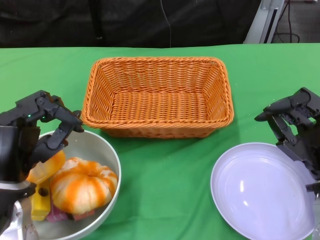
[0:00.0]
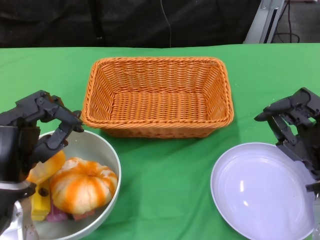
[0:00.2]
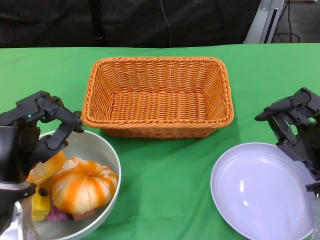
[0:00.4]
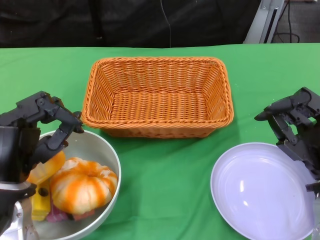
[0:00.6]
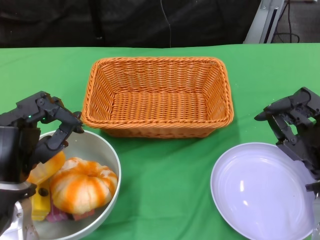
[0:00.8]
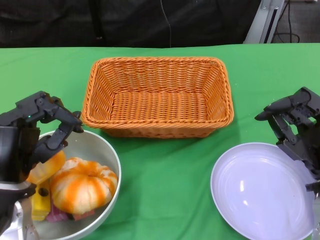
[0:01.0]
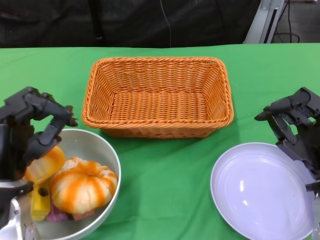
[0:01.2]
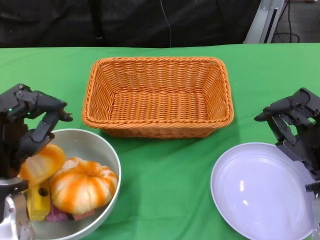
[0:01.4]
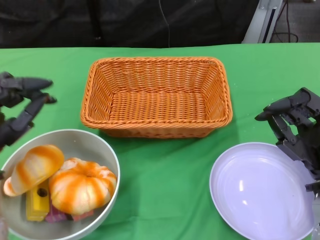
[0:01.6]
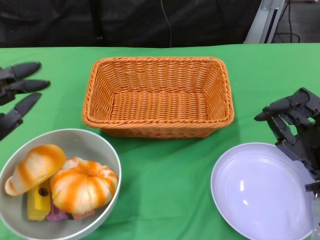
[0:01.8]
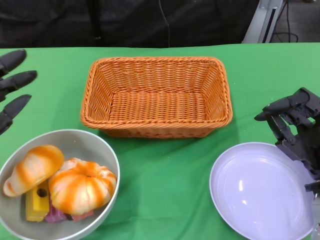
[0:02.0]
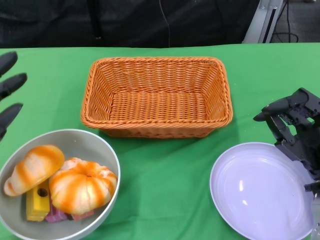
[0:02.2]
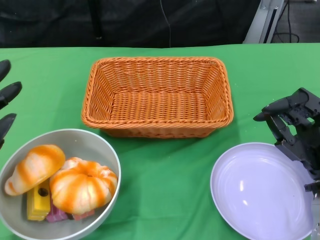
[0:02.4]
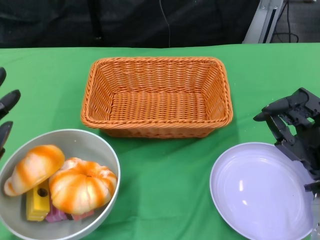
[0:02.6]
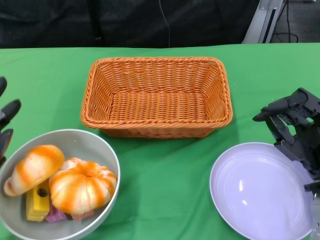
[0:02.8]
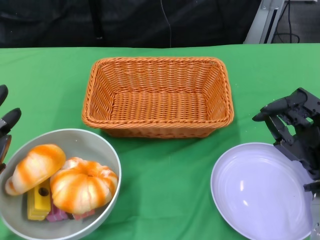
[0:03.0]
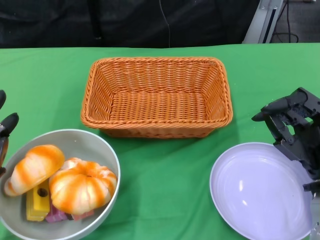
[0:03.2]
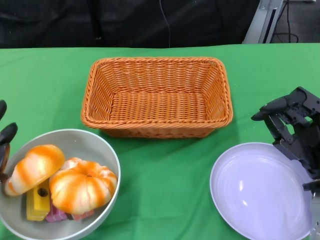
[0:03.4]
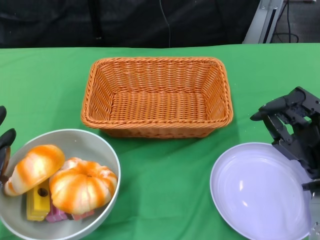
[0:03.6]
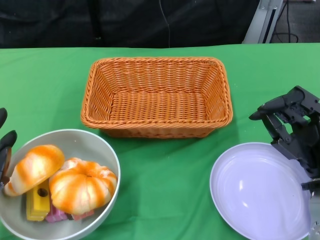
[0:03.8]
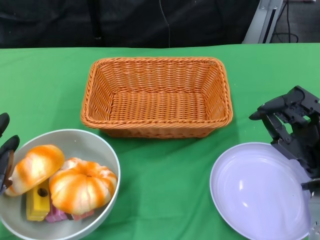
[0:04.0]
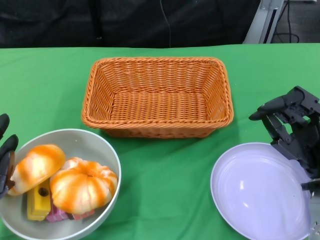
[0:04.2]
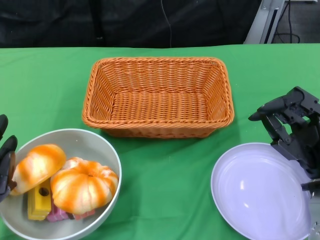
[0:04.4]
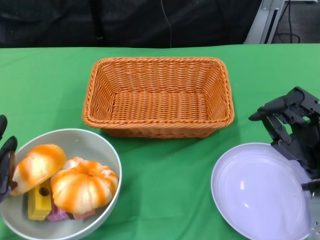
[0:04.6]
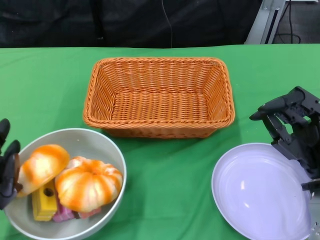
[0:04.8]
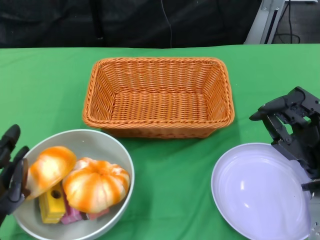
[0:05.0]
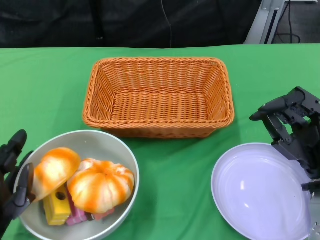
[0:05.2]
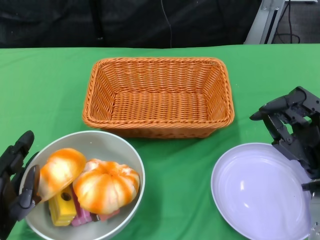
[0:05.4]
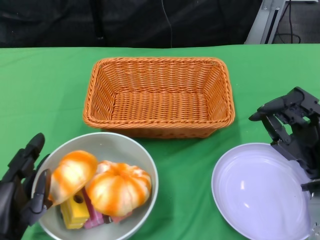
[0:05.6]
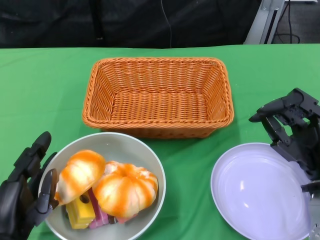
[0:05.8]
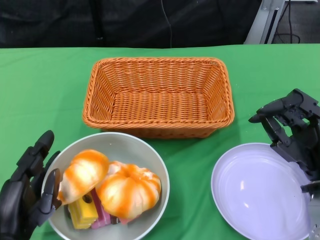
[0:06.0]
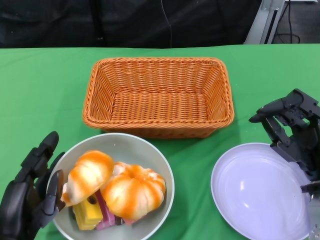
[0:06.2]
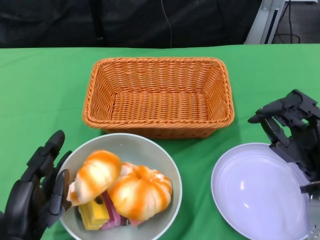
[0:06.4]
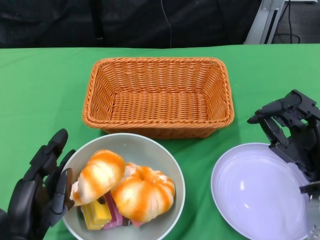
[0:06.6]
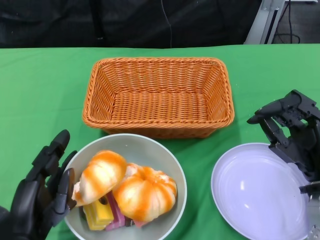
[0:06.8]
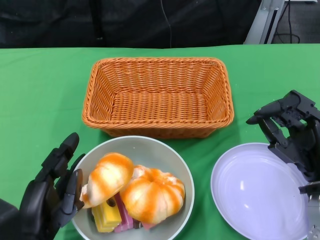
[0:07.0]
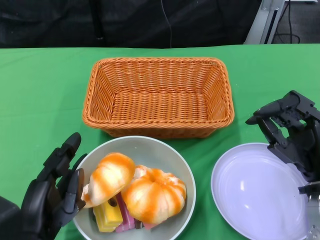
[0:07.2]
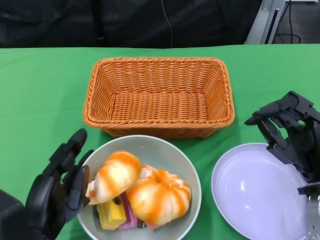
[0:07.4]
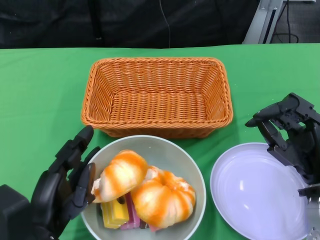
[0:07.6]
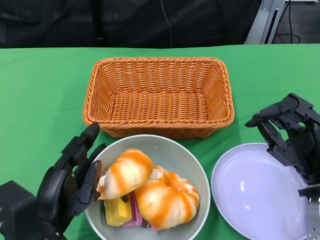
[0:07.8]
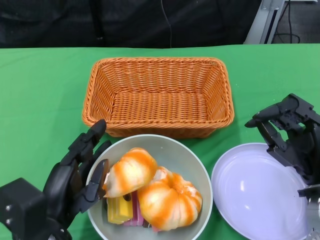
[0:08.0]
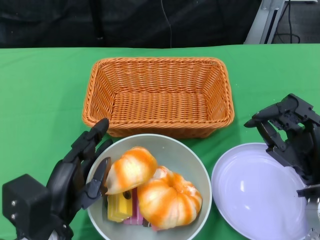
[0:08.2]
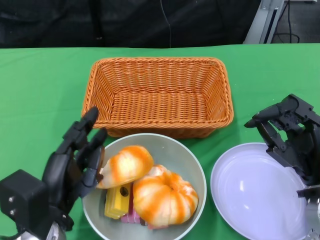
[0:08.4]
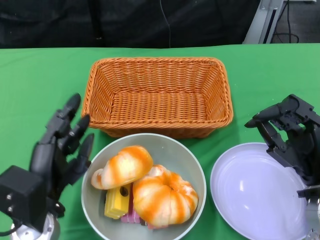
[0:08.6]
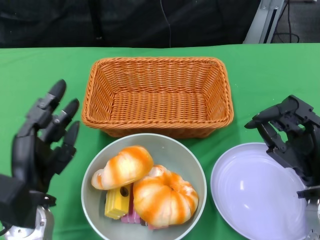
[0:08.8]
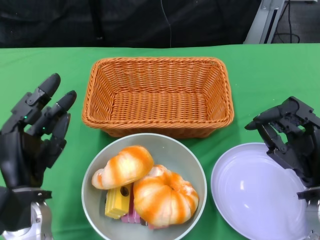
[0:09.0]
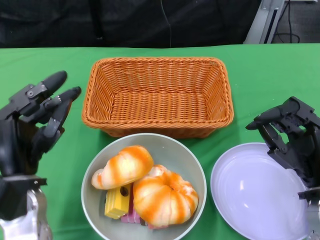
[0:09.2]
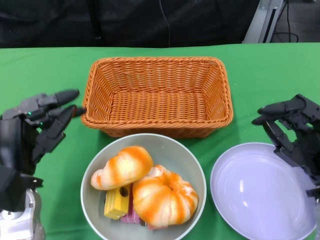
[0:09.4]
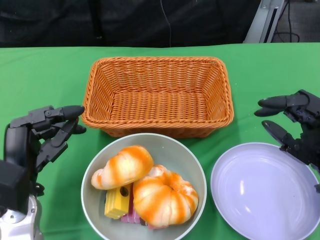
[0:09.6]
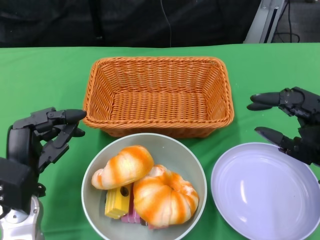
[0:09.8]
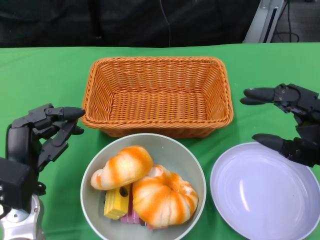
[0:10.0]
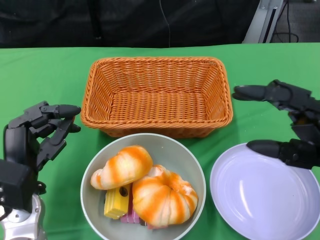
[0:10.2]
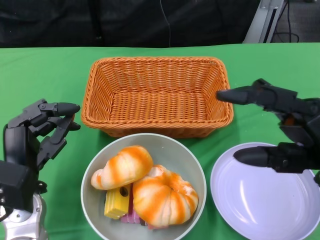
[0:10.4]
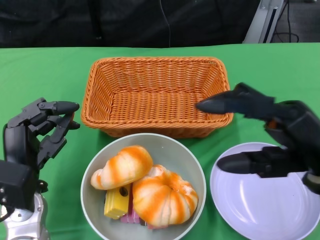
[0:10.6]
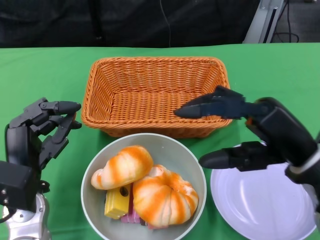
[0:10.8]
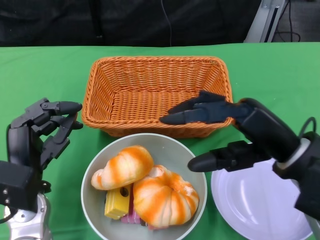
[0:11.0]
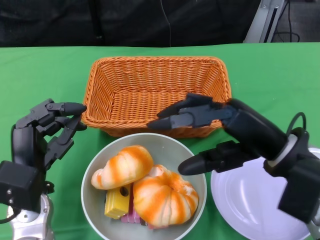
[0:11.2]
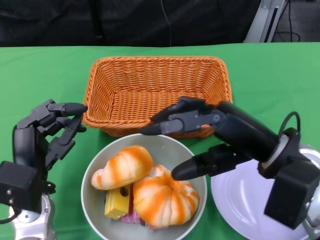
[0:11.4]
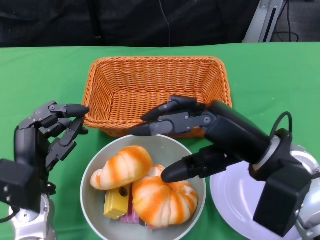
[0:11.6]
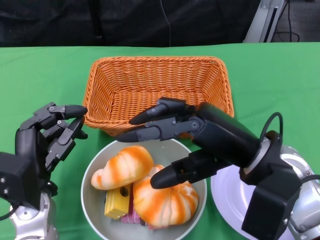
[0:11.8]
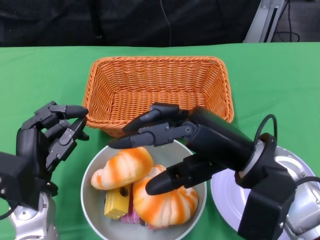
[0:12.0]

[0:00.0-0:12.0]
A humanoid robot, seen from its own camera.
Step, 0:00.0 to 0:09.2: Push the bowl to the center of the table using the left gripper.
0:01.6 to 0:03.0: The left hand shifts by approximately 5 cm.
0:03.0 to 0:04.4: The hands move only a little.
0:04.4 to 0:06.0: The left hand travels to the right by some 5 cm.
0:09.0 to 0:10.4: The right hand shifts roughly 10 cm upward.
0:10.4 to 0:12.0: The right hand is displaced to the left by about 10 cm.

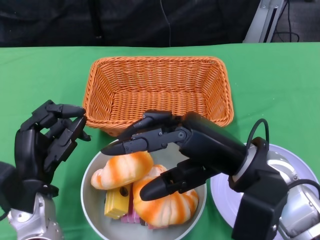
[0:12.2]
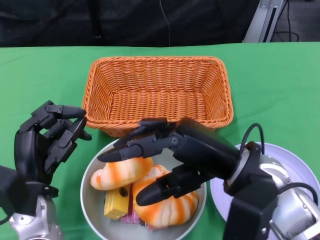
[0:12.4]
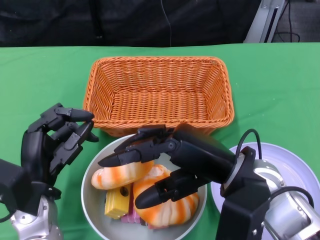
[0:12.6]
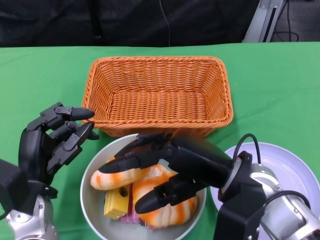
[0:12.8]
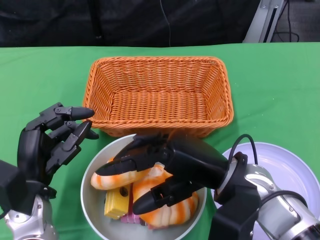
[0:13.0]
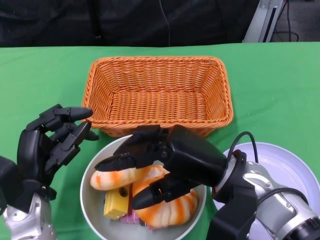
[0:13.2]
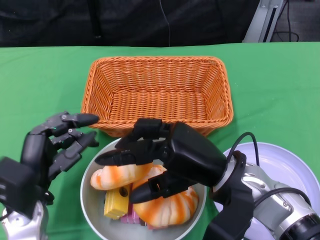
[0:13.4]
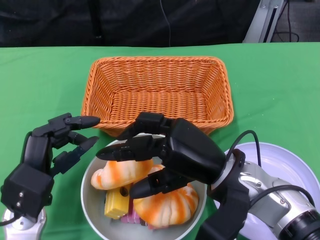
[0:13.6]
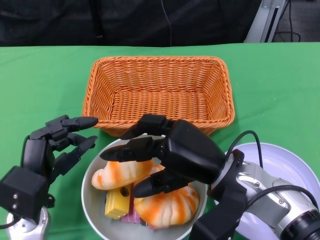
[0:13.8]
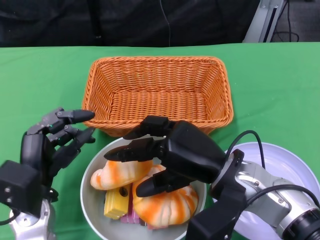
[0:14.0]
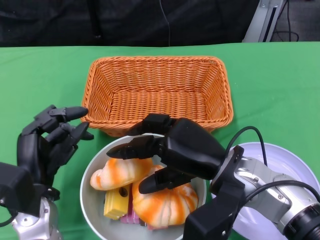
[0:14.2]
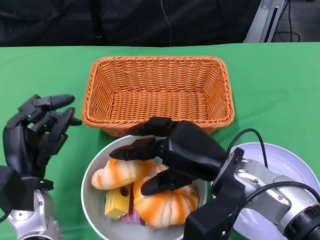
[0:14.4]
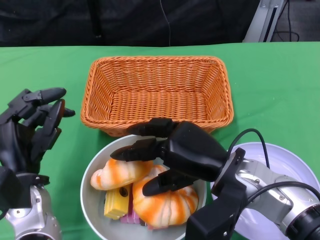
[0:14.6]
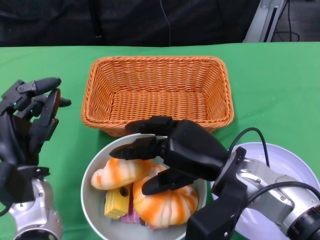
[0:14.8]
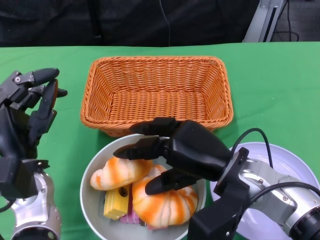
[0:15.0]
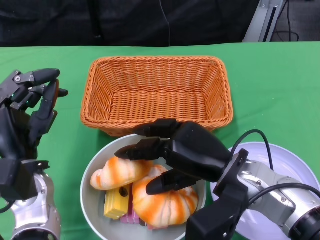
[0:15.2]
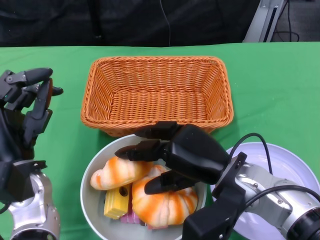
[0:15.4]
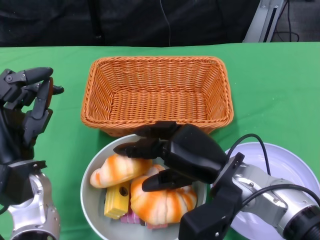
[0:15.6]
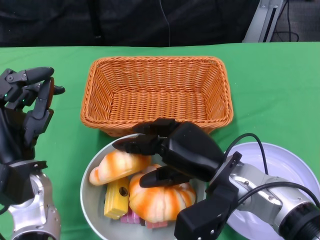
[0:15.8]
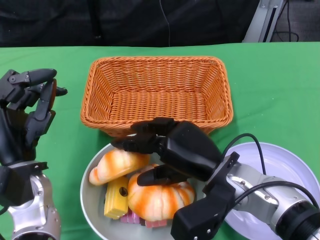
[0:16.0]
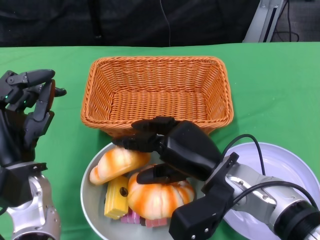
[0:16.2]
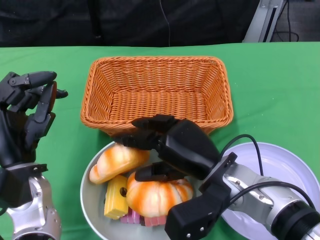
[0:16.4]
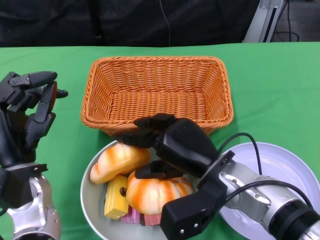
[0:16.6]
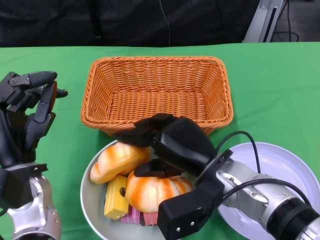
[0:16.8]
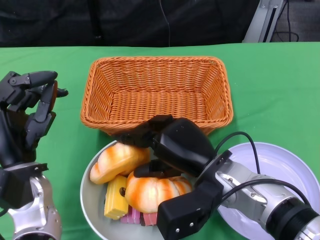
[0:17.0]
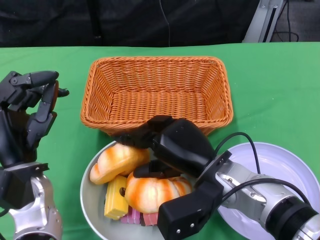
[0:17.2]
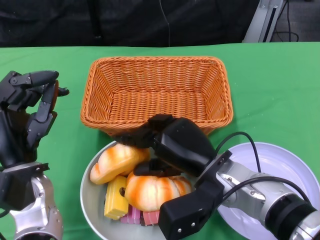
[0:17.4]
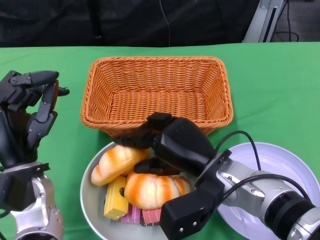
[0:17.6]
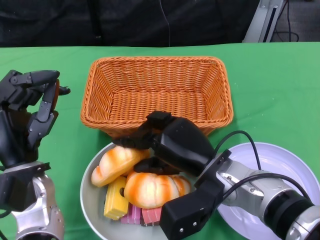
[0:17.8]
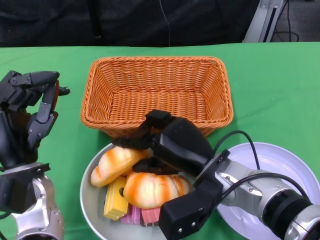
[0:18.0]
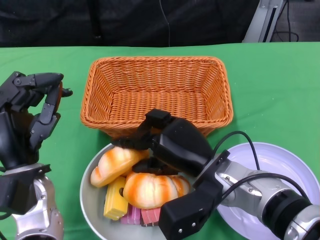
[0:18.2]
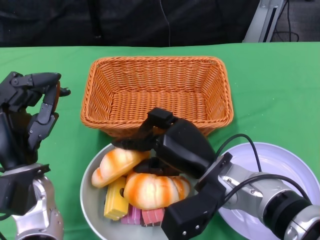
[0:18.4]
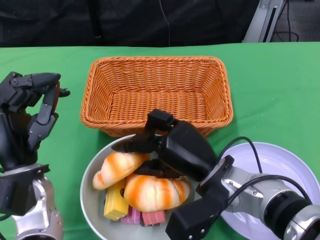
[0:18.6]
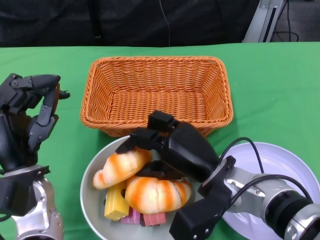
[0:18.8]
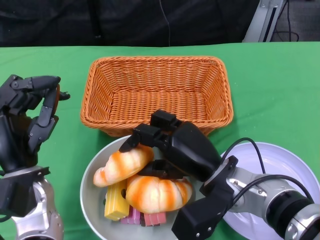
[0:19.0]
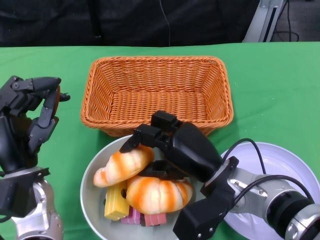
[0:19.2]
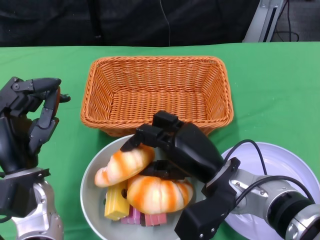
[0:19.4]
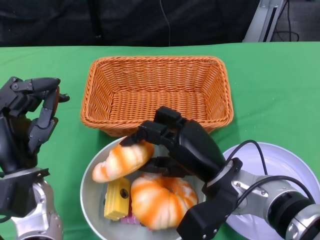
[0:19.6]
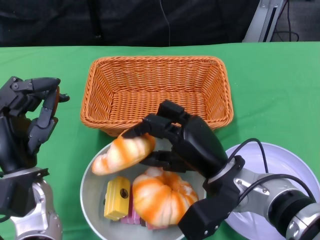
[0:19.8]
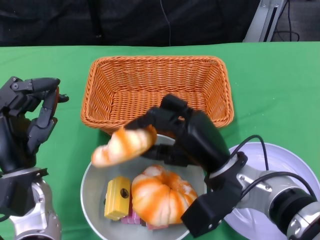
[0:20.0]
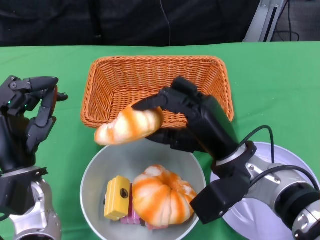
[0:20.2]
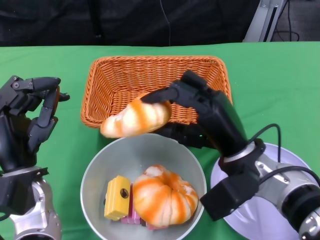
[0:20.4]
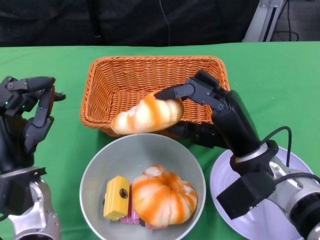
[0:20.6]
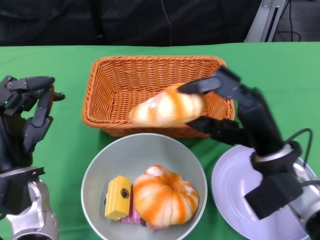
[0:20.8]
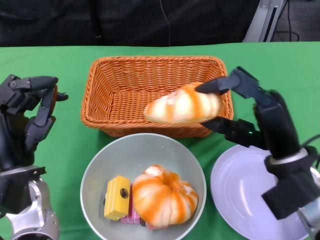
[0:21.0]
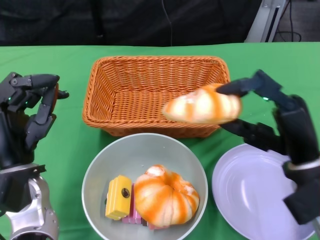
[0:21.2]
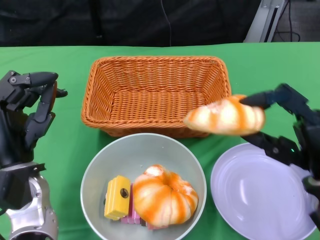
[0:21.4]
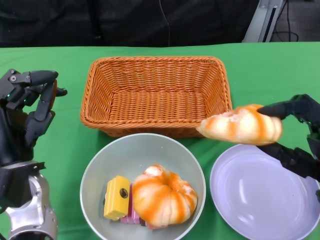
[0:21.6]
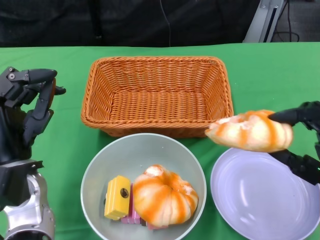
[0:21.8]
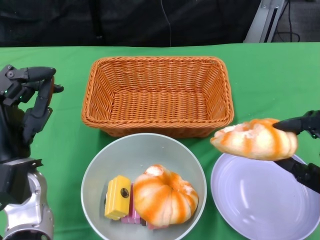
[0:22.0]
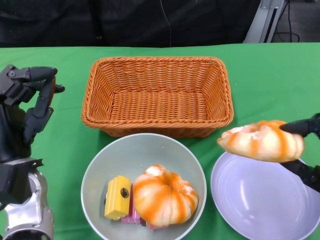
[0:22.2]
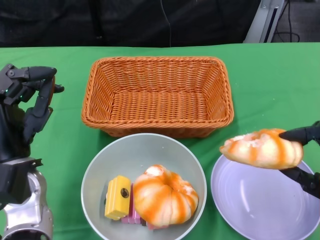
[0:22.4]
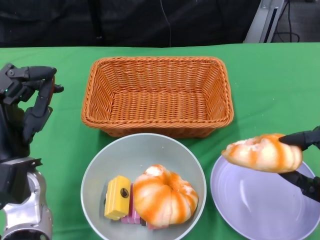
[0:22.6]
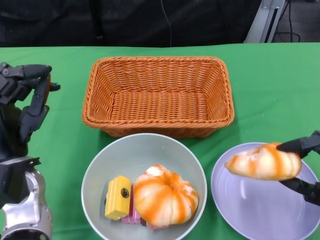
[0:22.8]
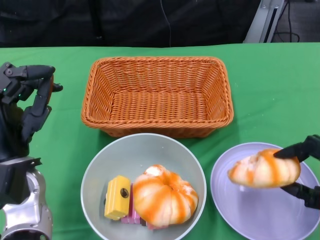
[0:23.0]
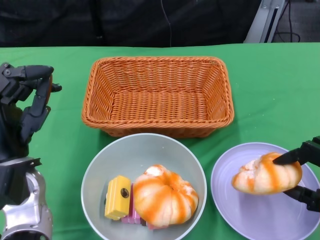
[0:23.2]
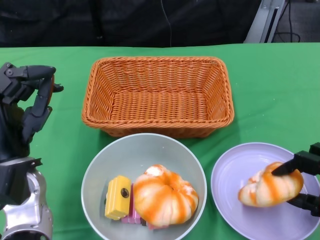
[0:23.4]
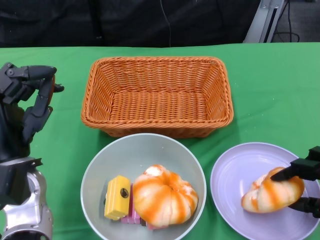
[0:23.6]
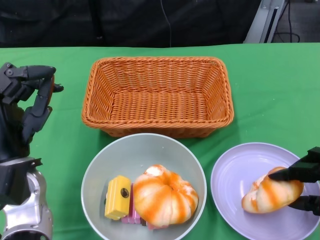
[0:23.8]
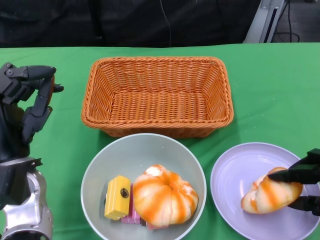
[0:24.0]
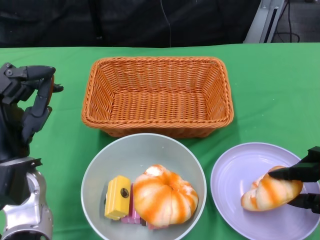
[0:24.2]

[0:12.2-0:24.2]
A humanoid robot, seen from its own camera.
0:12.2 to 0:13.8: The right hand changes place by about 5 cm.
0:13.8 to 0:15.2: The left hand ends up approximately 5 cm from where it was.
0:16.6 to 0:18.2: The two hands keep their place.
0:19.8 to 0:21.2: The right hand is displaced to the right by roughly 10 cm.
0:21.2 to 0:22.6: The right hand is displaced to the right, backward and downward by about 10 cm.
